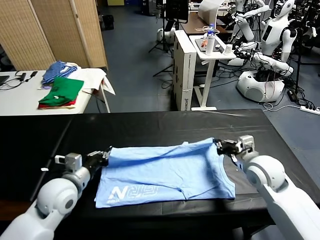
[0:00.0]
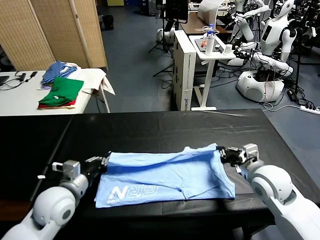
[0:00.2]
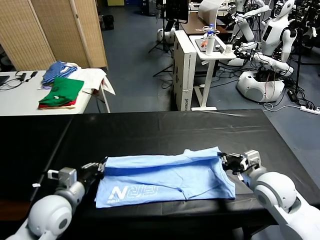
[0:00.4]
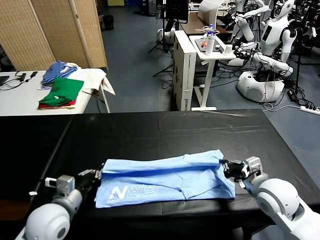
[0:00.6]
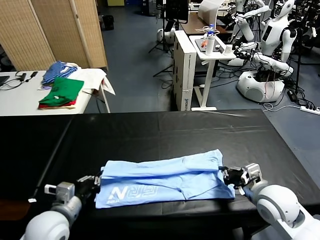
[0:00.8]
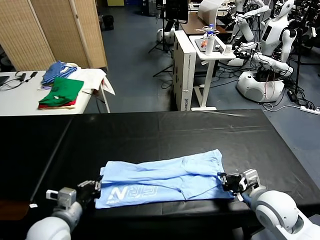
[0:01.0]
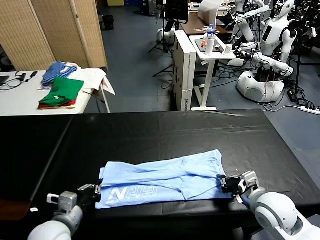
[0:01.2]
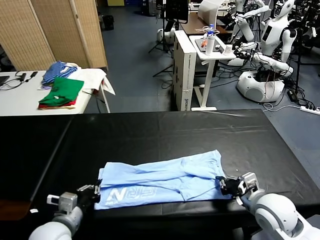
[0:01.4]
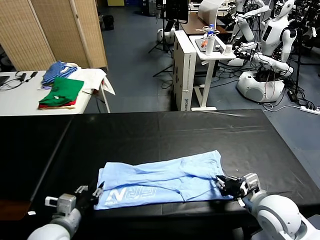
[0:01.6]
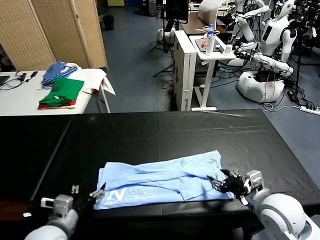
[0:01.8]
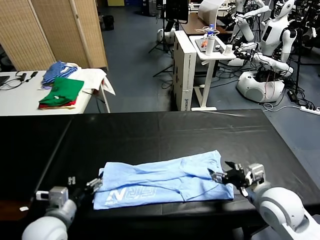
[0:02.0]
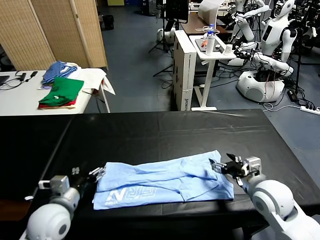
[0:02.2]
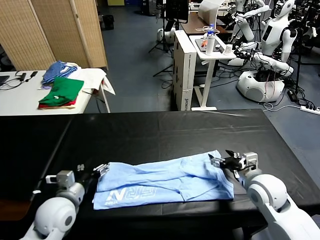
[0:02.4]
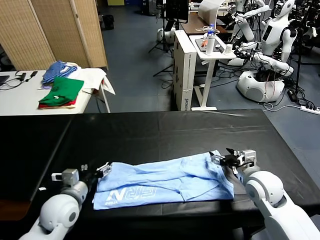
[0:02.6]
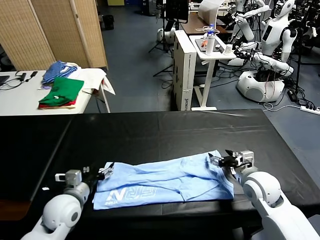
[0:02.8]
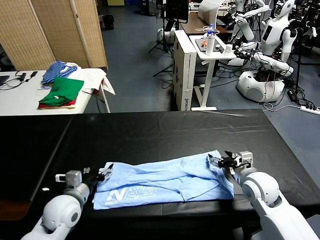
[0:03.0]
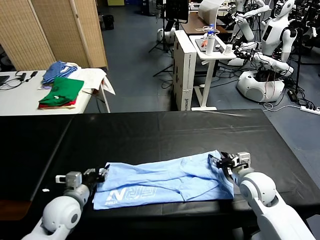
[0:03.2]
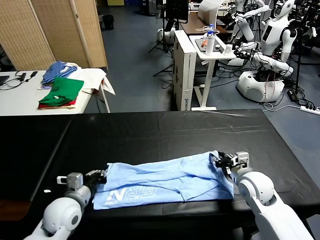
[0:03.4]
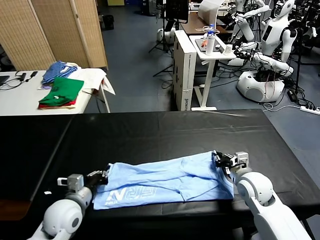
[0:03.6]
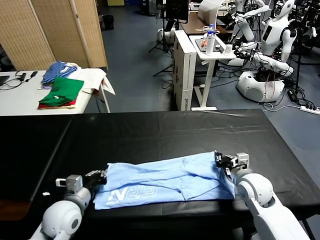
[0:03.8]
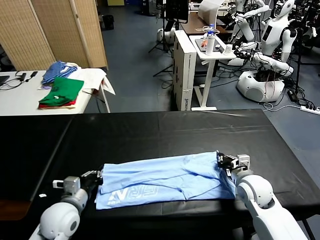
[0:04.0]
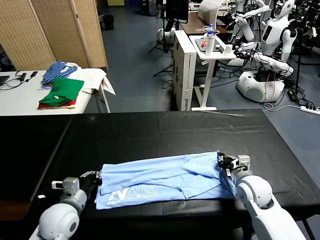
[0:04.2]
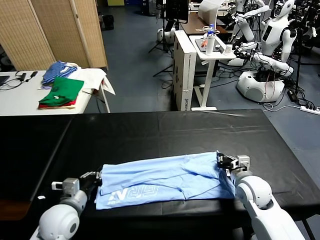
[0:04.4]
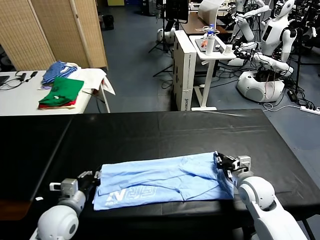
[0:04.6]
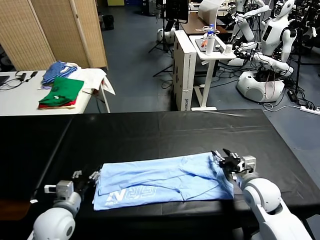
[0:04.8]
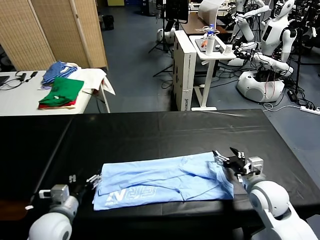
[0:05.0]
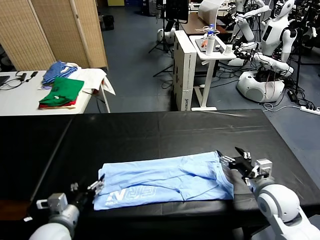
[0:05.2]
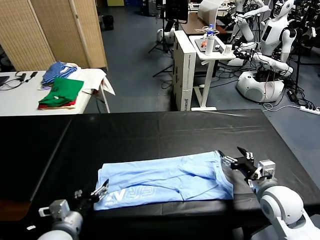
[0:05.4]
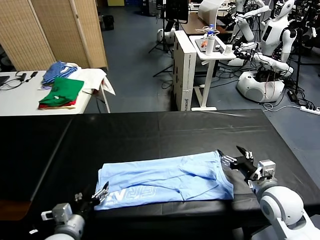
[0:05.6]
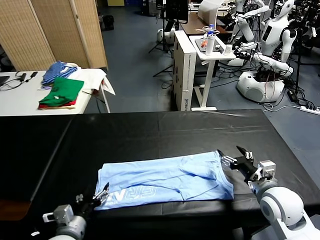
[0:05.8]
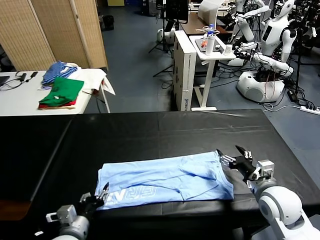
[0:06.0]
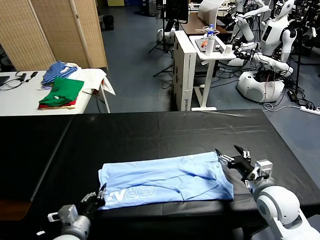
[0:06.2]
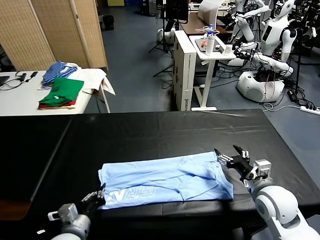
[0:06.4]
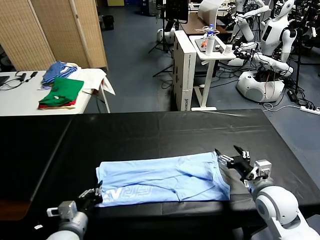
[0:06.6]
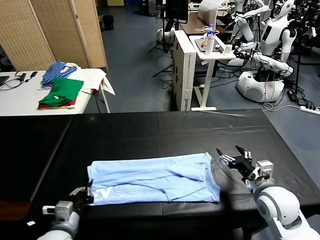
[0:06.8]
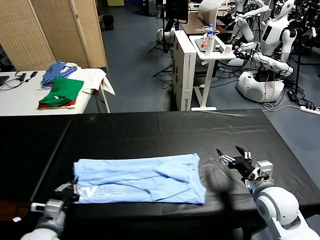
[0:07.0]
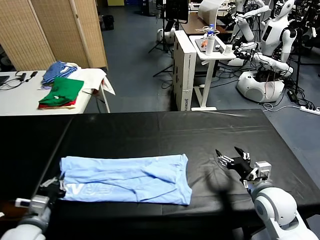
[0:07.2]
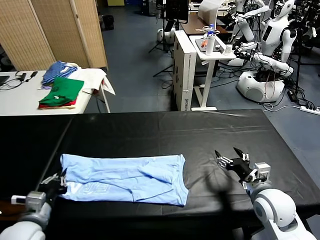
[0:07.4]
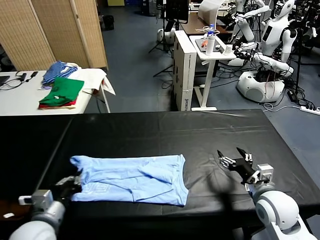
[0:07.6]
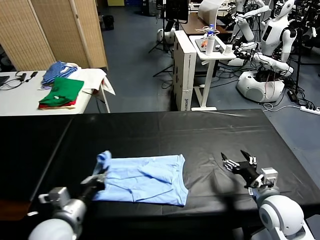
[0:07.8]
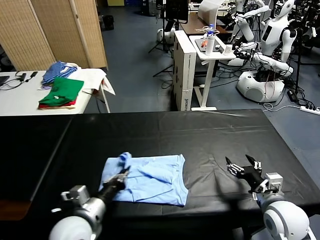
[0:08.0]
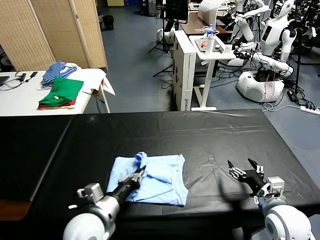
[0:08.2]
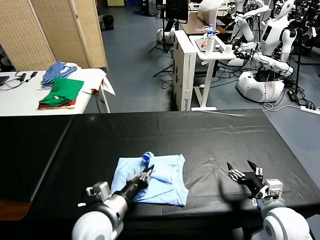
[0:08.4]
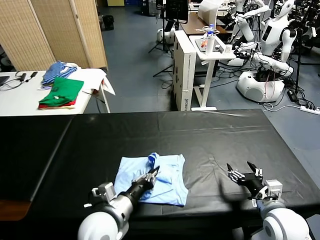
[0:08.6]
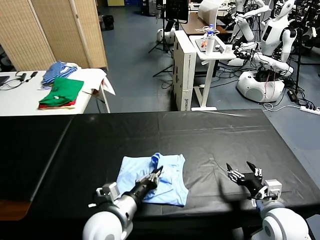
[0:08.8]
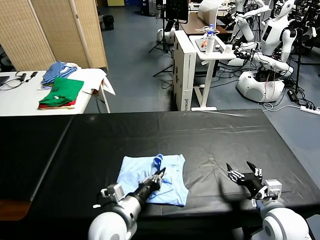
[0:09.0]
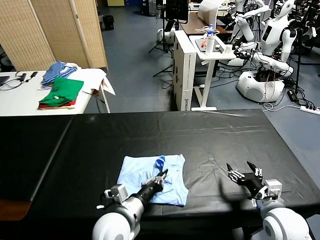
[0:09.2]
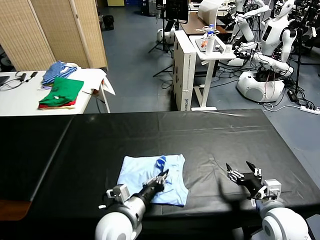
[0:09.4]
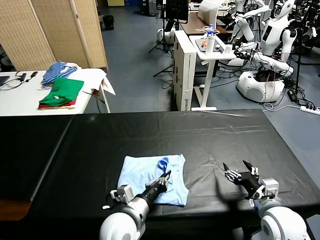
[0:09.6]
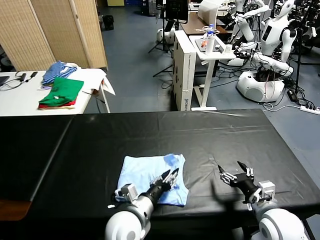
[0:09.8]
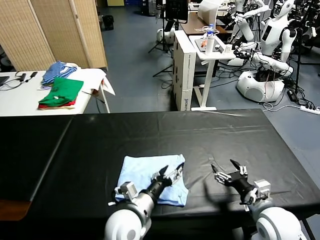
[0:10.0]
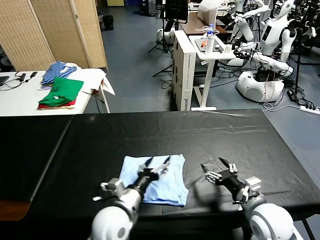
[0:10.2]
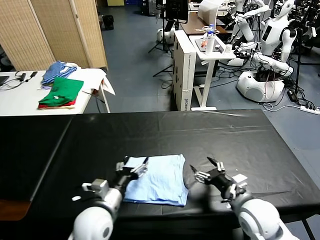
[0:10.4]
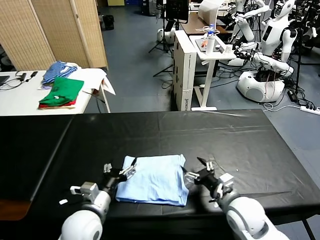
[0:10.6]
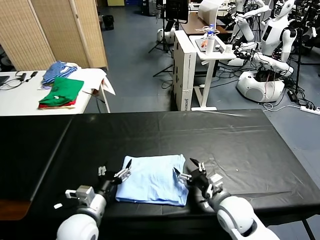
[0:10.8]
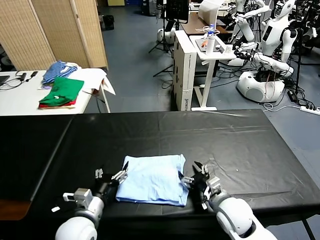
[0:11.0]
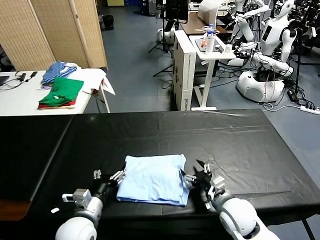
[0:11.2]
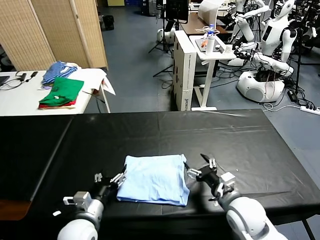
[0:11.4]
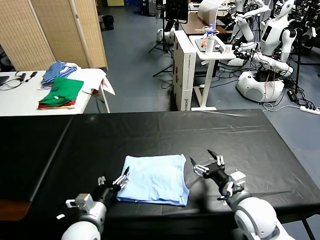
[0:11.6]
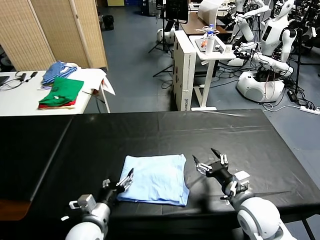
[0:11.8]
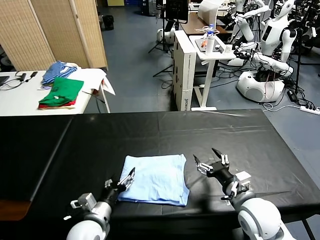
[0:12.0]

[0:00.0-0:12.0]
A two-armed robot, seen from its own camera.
Task of the whole recording: fold and organize the clothes.
Step, 0:00.0 to 0:01.6: use both grippers to drag the upper edge of the fabric backward and fold it over the lower edge.
Step, 0:01.8 to 0:06.8: use the left gripper to clamp the left edge of the fabric.
Step, 0:07.2 to 0:09.8: use the left gripper to drag the left edge of the fabric to the left and folds it over the right edge.
0:00.0 to 0:01.6: Both grippers travel together backward, roughly 10 cm. The left gripper opens its fingers. Meanwhile the right gripper opens up.
0:01.6 to 0:03.0: The left gripper moves forward, about 10 cm. The right gripper is displaced forward and downward by approximately 10 cm.
0:03.0 to 0:04.4: The right gripper closes, while the left gripper closes.
0:04.4 to 0:06.0: The left gripper shifts some 5 cm backward, and opens, while the right gripper moves backward and upward, approximately 10 cm, and opens its fingers.
0:06.0 to 0:07.6: The left gripper goes some 5 cm upward, and closes up.
0:07.6 to 0:09.0: The left gripper heads to the right, covering roughly 15 cm.
0:09.0 to 0:10.4: The right gripper shifts approximately 5 cm to the left, while the left gripper shifts by about 5 cm, and opens its fingers.
0:10.4 to 0:12.0: The left gripper changes place by approximately 5 cm.

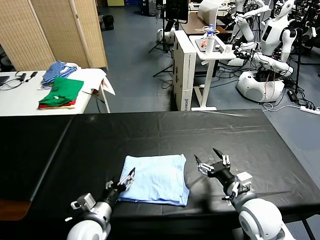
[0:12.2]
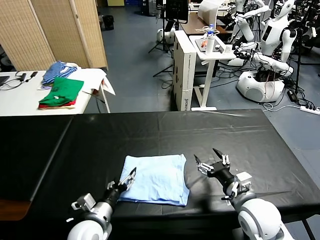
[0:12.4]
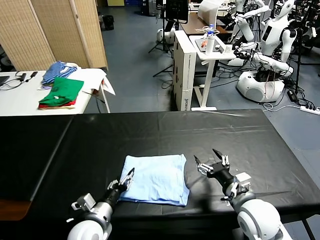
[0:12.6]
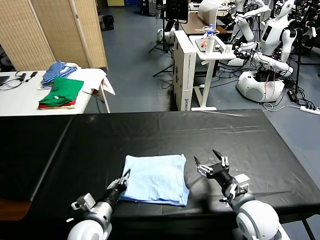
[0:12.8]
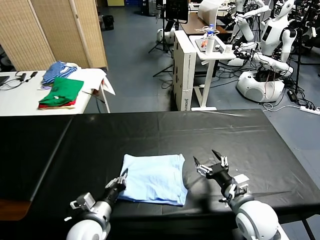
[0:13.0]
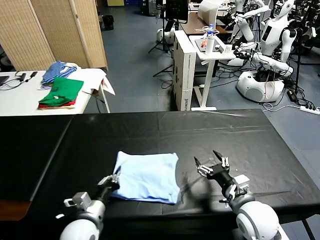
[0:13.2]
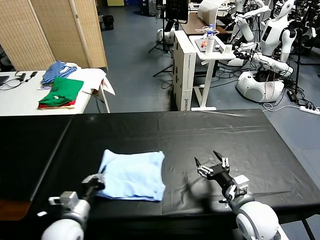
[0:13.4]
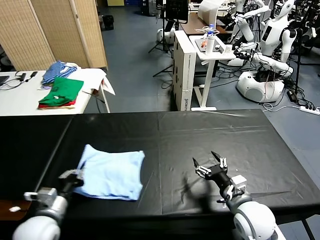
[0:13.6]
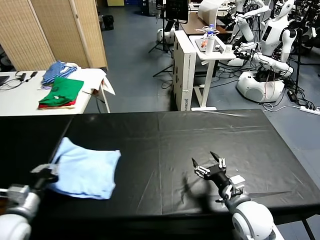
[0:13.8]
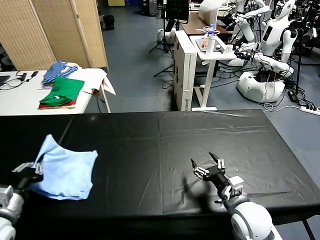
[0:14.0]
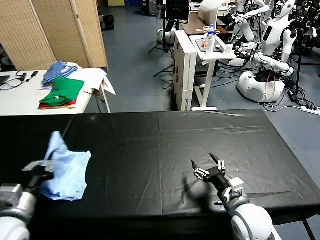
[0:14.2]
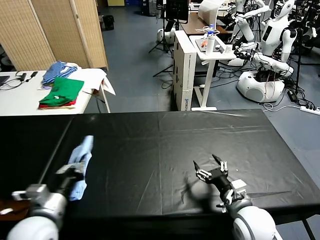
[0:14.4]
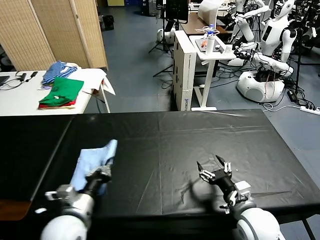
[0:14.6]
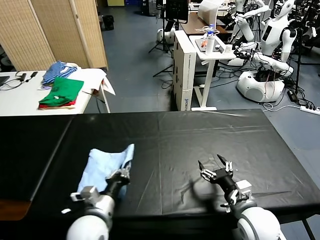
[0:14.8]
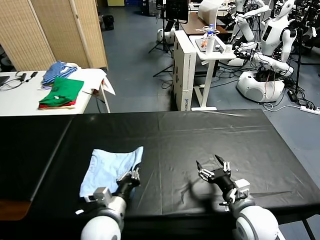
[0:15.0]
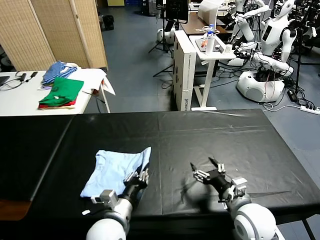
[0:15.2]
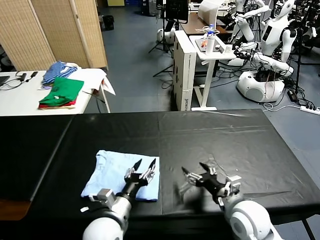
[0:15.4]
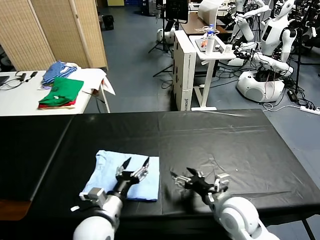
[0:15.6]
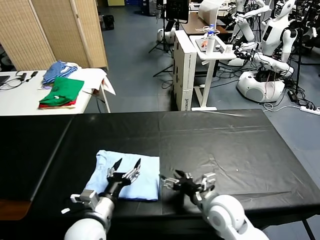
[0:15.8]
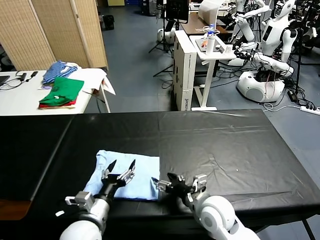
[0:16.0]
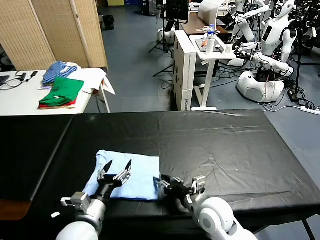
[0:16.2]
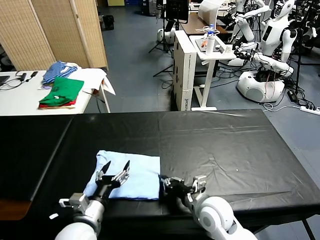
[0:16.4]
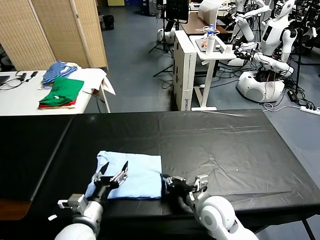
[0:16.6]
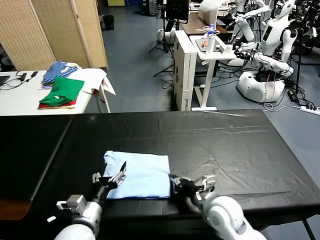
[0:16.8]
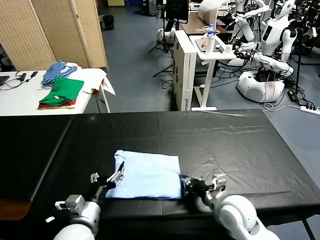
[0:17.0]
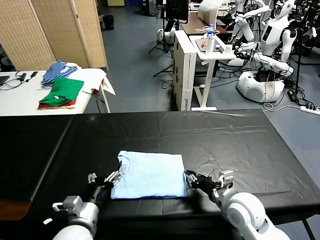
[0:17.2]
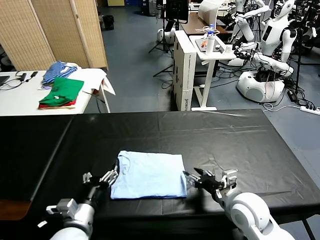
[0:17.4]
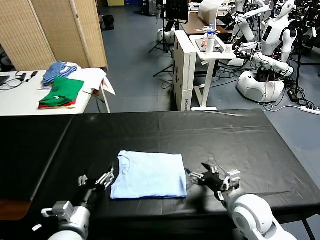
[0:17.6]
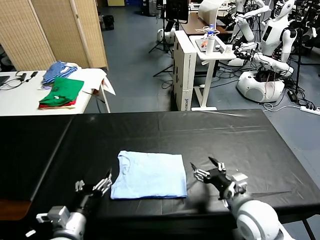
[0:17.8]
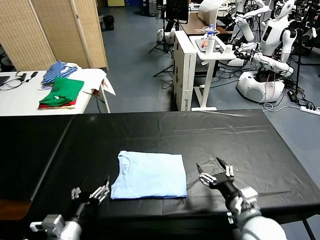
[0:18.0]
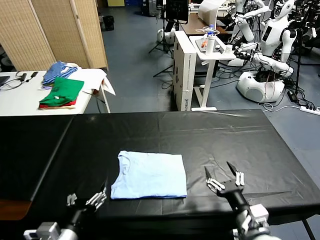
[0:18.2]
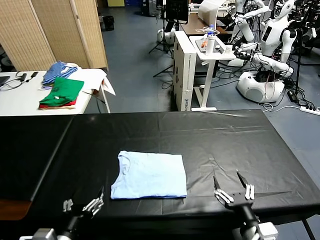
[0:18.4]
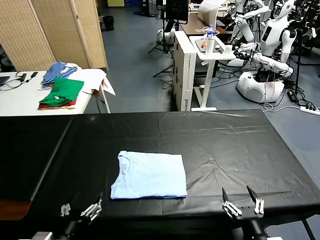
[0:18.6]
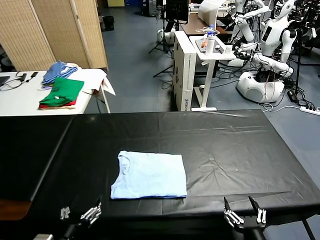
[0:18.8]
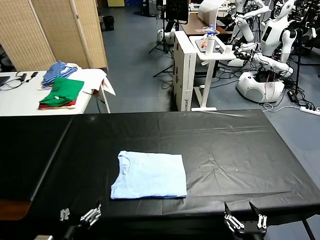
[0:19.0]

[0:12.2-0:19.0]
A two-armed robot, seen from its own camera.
Task of the whole recording: fold and organize the clothes.
Step, 0:12.2 to 0:15.2: Flip the folded clothes over with left gripper.
Step, 0:15.4 to 0:17.2: Drag the clothes to the center of the table.
0:12.2 to 0:13.6: The left gripper goes about 10 cm to the left and upward, and closes.
0:13.6 to 0:15.0: The left gripper travels to the right by roughly 15 cm.
0:15.0 to 0:16.2: The right gripper goes about 10 cm to the left, and closes, while the left gripper heads to the left, covering some 5 cm, and opens up.
0:16.2 to 0:17.6: The right gripper is displaced to the right by some 10 cm, and closes, then reopens.
0:17.6 to 0:19.0: The right gripper moves backward, approximately 20 cm. The left gripper shifts roughly 10 cm backward.

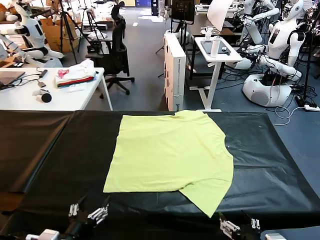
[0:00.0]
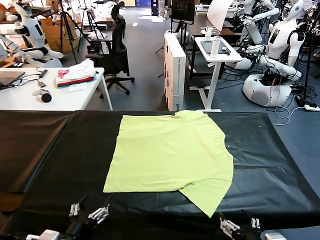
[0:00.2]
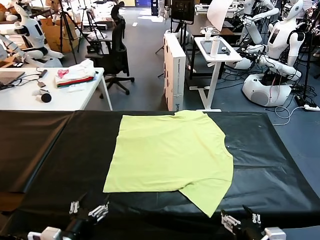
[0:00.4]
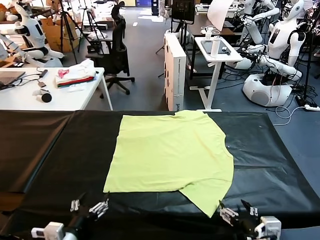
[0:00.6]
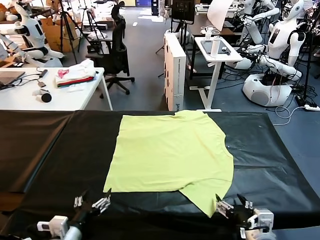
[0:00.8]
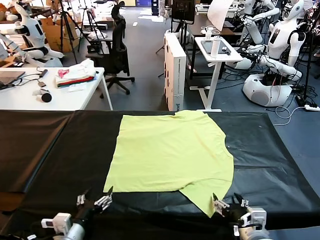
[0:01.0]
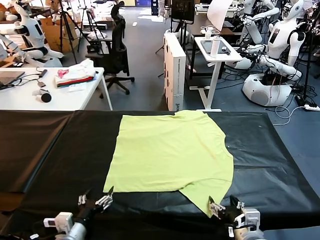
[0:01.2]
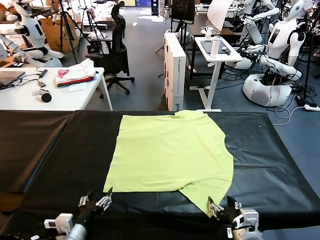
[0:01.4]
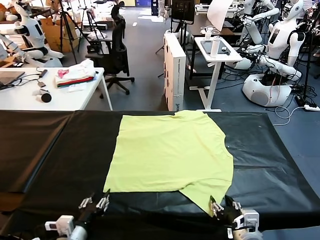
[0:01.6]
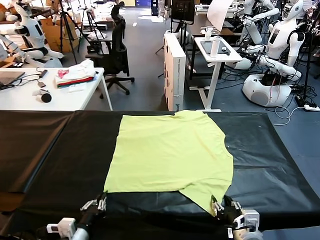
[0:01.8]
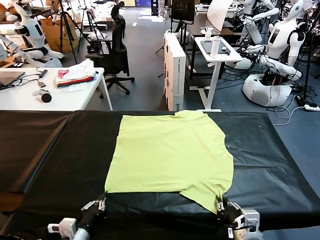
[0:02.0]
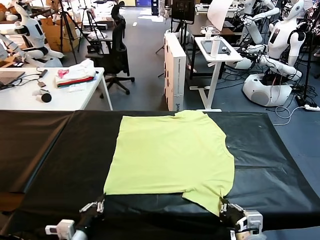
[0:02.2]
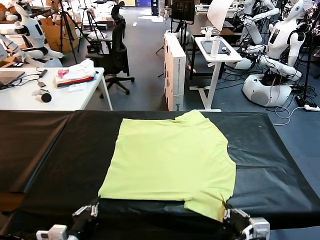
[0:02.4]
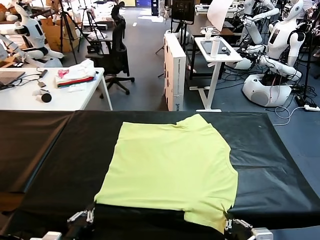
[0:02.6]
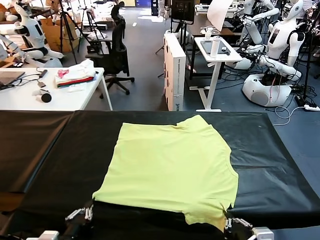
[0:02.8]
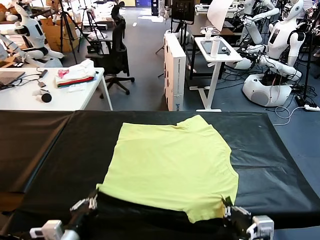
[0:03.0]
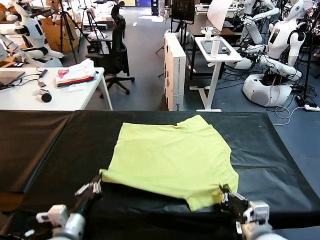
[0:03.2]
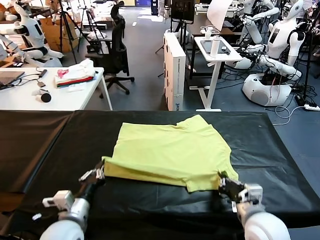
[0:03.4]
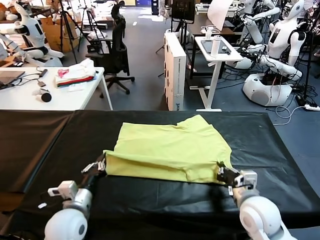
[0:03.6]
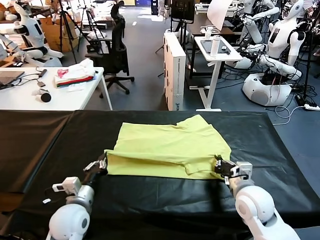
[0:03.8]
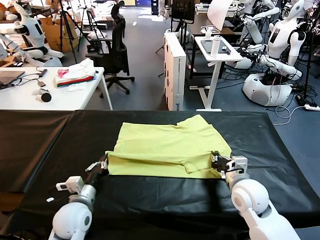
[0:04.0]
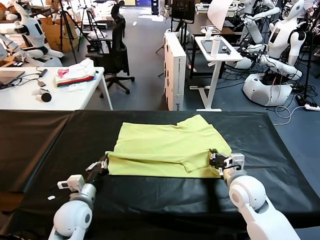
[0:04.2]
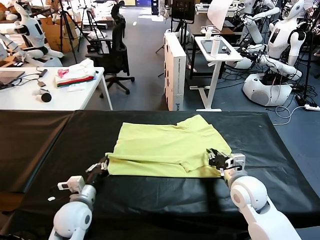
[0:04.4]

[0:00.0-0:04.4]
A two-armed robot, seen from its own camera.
Task of the whole recording: fold and organize the clothes.
Step, 0:00.0 to 0:02.2: use both grippers simultaneously to clamp the lower edge of the clothing fabric.
0:01.4 to 0:03.0: The right gripper ends up about 5 cm from where it was, and closes its fingers, while the left gripper closes its fingers.
0:03.0 to 0:04.4: The two grippers go some 10 cm forward. The left gripper opens, while the right gripper opens its fingers.
